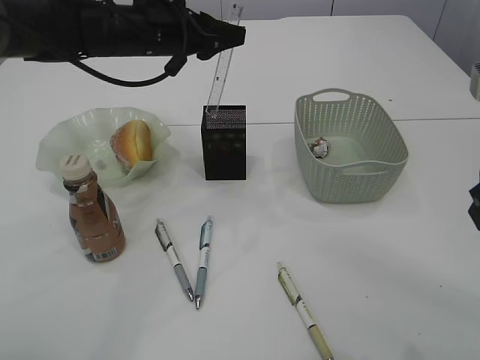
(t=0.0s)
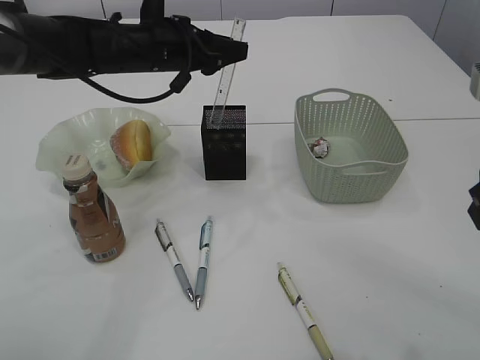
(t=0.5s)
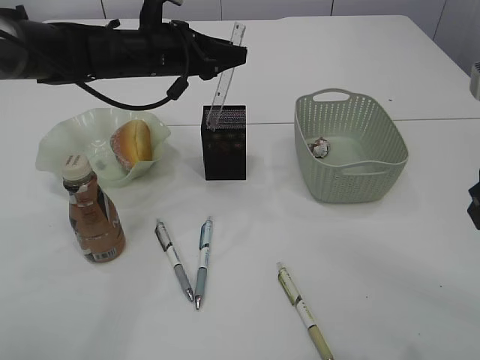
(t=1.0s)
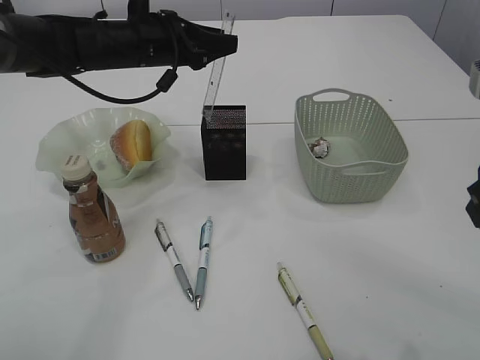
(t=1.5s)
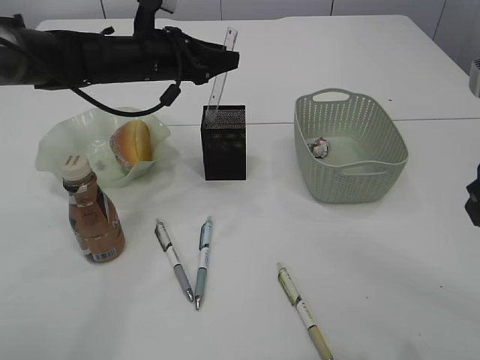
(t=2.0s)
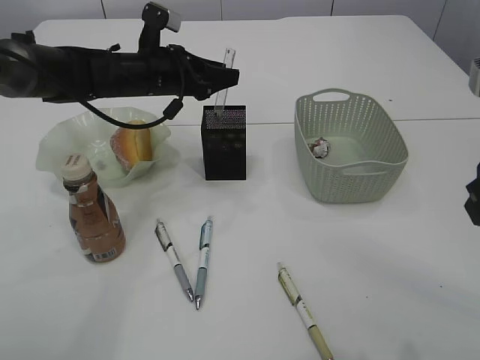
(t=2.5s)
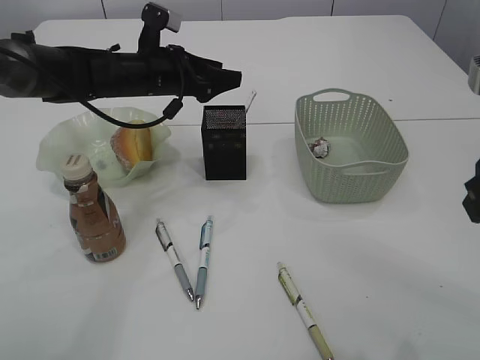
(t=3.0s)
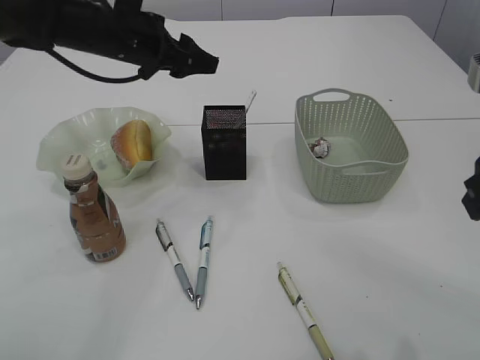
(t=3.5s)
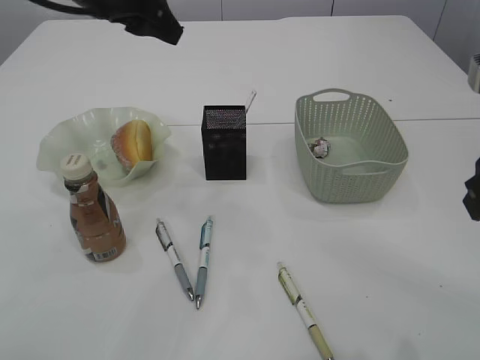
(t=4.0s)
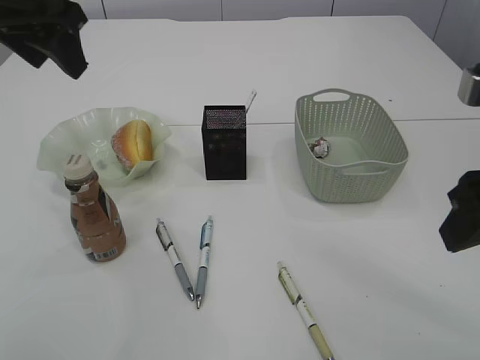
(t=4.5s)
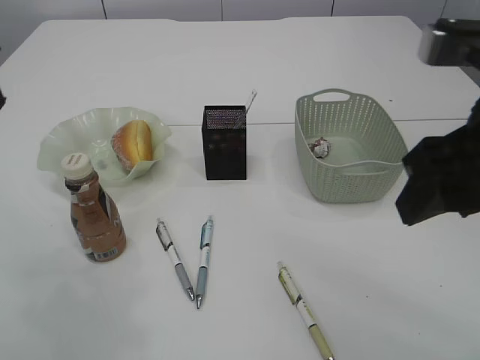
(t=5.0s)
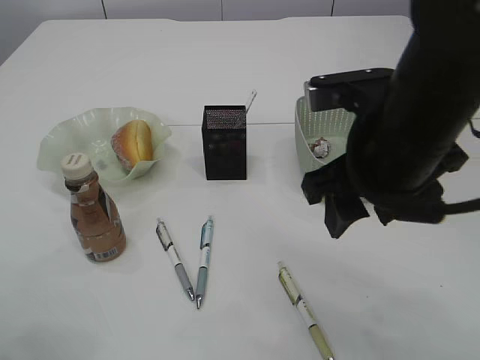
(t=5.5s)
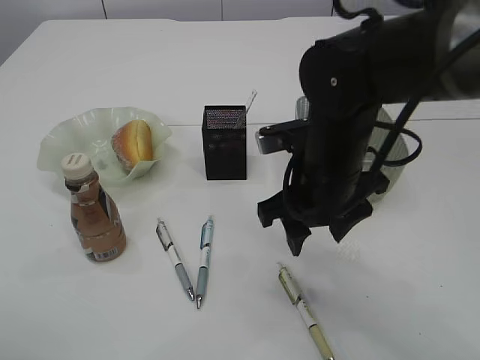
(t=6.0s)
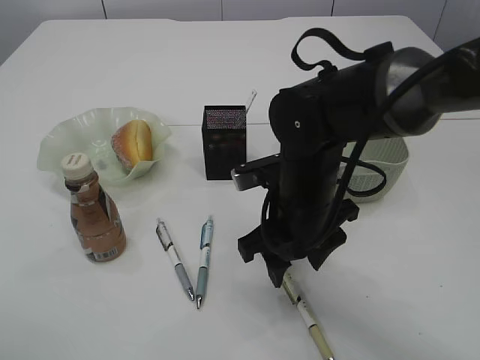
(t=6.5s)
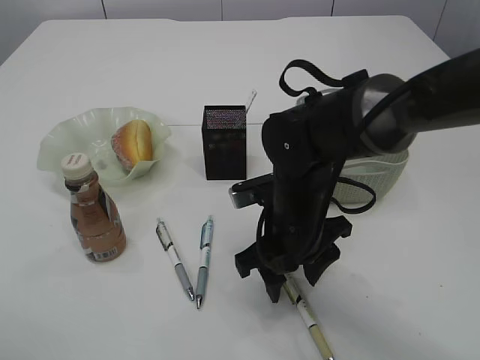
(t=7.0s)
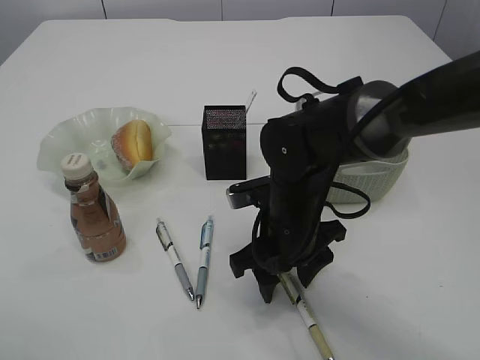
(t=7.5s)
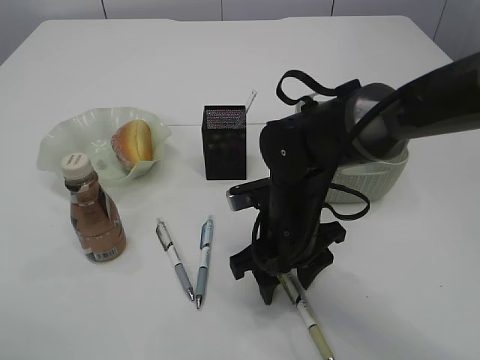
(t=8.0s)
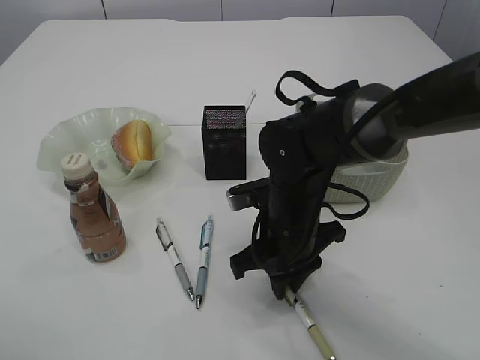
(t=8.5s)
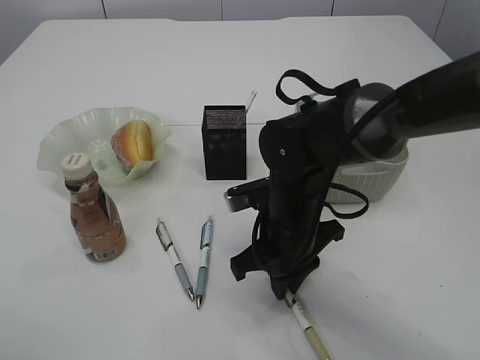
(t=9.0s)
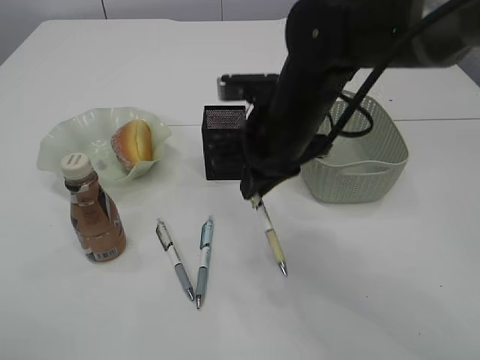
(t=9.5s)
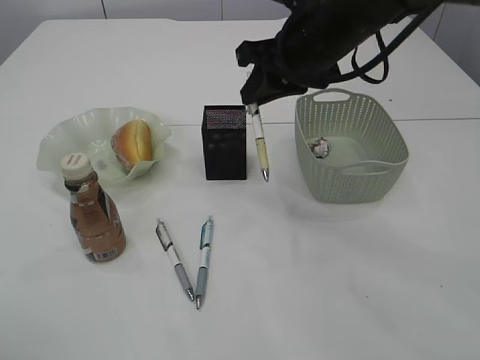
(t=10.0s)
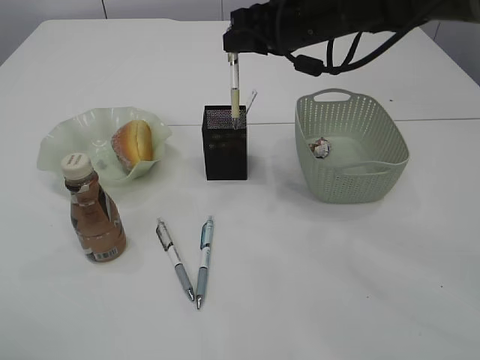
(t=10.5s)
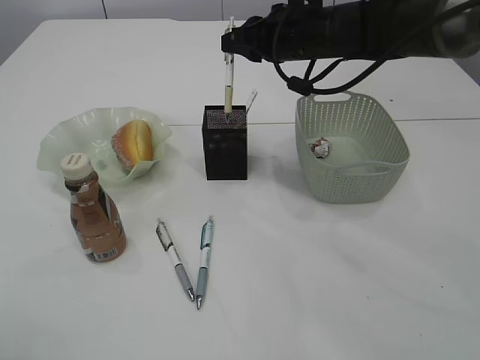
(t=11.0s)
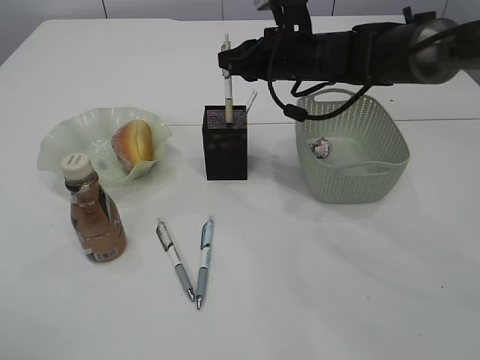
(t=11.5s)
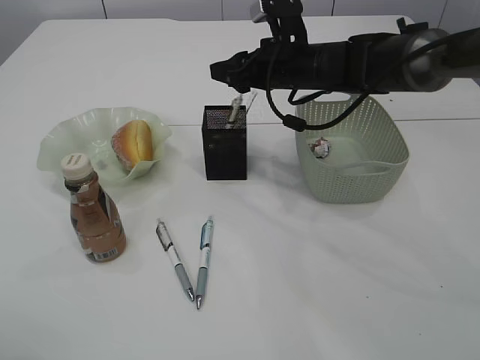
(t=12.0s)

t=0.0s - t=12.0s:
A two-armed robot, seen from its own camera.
Step, t=0.0s - t=2.5s: Place the ruler into the pen holder.
Step, t=3.0s - t=9.0s: Pick up the pen with right arm.
t=0.0s - t=2.0s: The grippers make only small movements.
t=2.0s - t=4.0s: The left gripper is displaced upward and backward by about 15 cm, and opens its fingers.
t=4.0s - t=6.0s: The left gripper moves backward and to the left, approximately 25 cm, while the right gripper is displaced to the left, forward and downward by some 20 cm.
t=6.0s - t=8.0s: The right gripper is displaced downward by roughly 10 cm.
t=8.0s - t=10.0s: The right gripper travels upward and forward by some 20 cm, and closes up.
t=10.0s - t=12.0s: The right gripper heads forward and downward, covering approximately 10 cm, and opens.

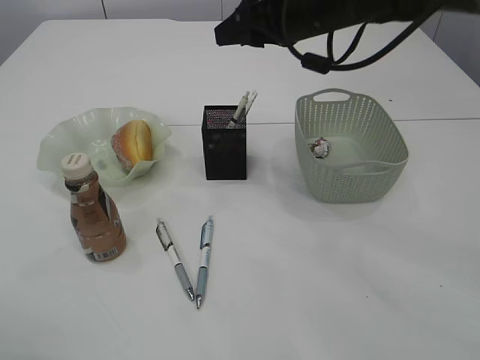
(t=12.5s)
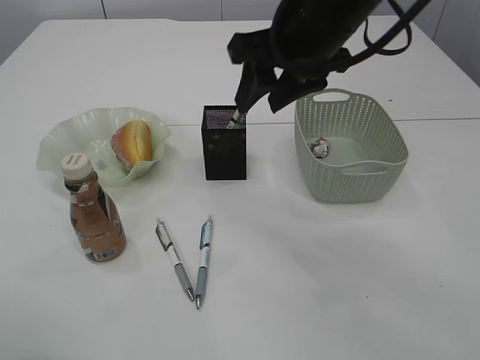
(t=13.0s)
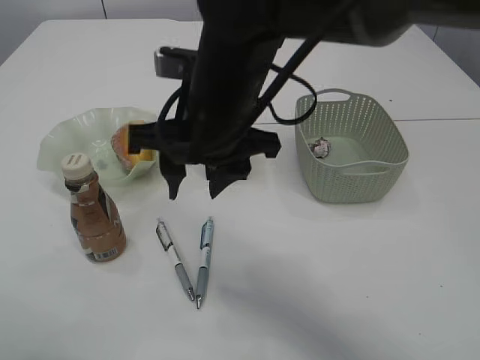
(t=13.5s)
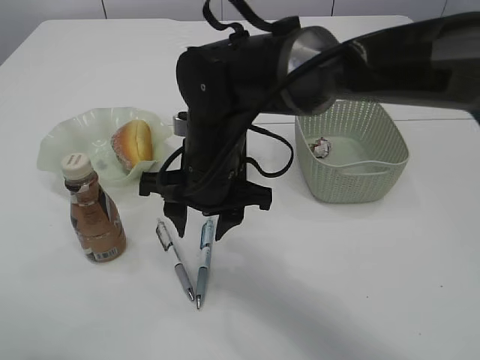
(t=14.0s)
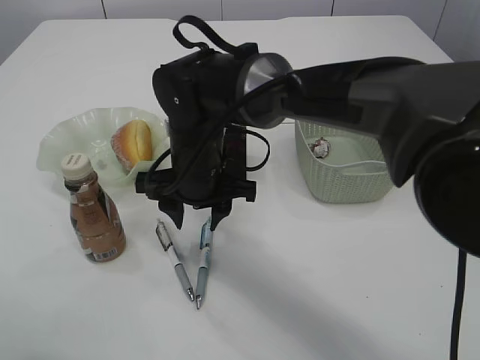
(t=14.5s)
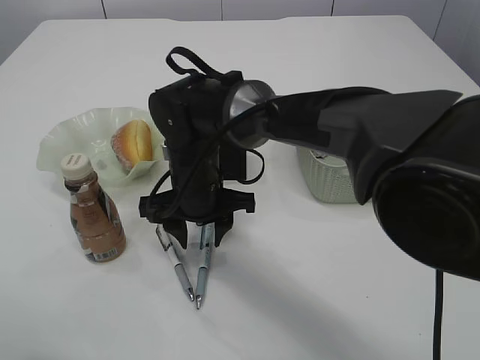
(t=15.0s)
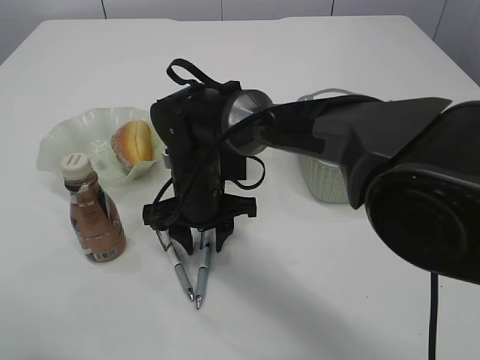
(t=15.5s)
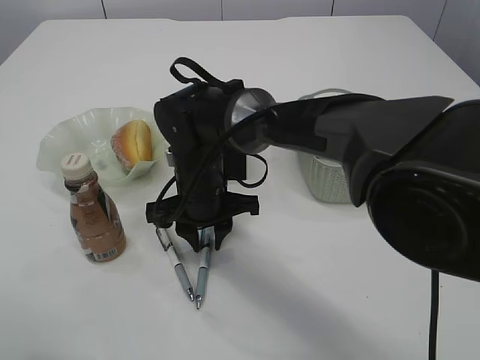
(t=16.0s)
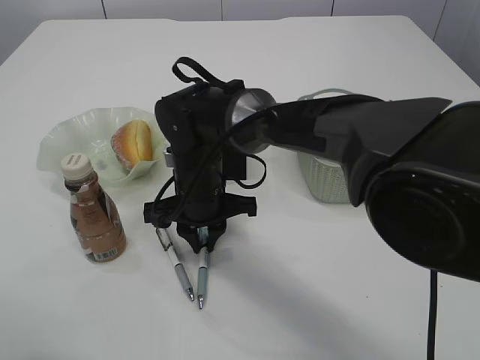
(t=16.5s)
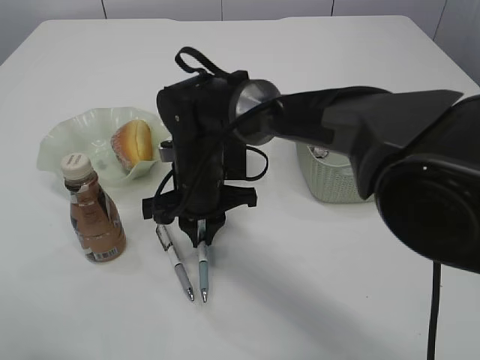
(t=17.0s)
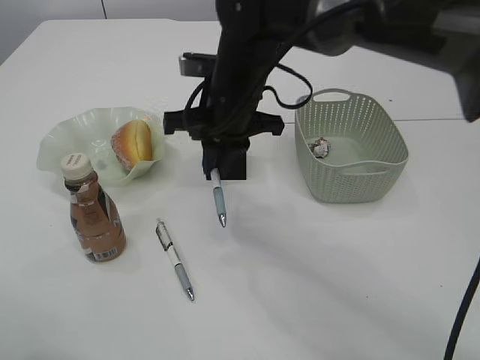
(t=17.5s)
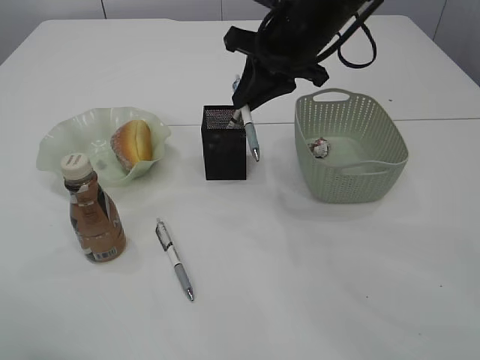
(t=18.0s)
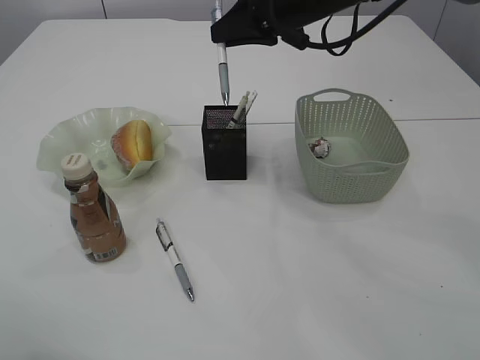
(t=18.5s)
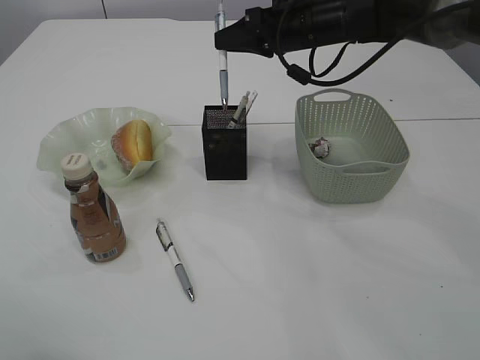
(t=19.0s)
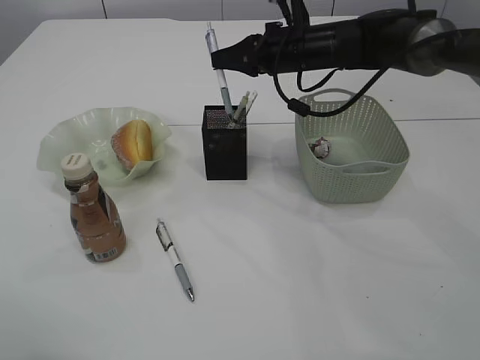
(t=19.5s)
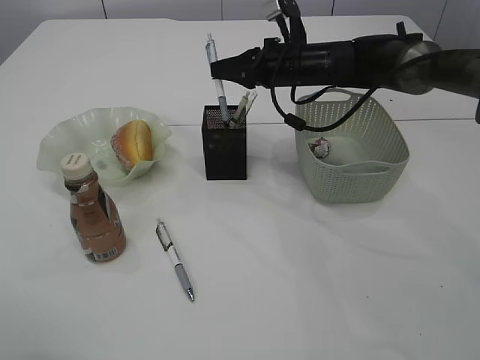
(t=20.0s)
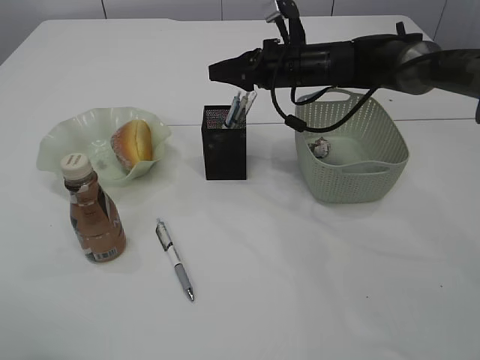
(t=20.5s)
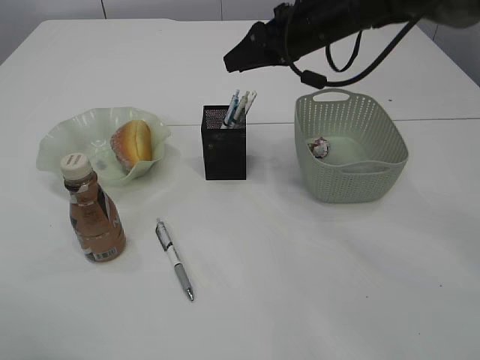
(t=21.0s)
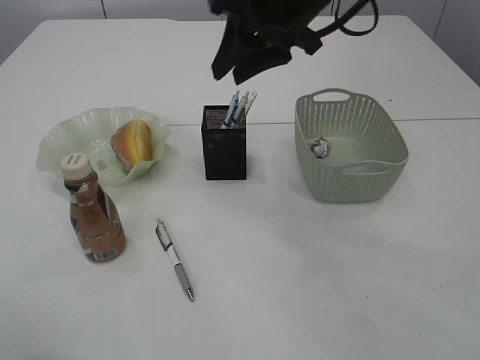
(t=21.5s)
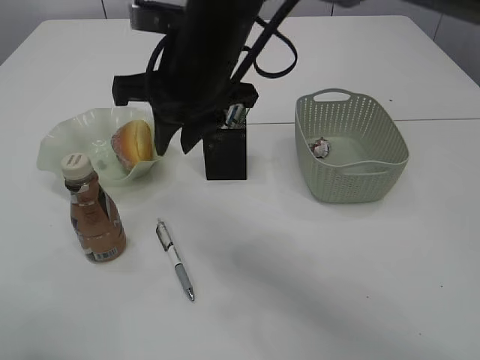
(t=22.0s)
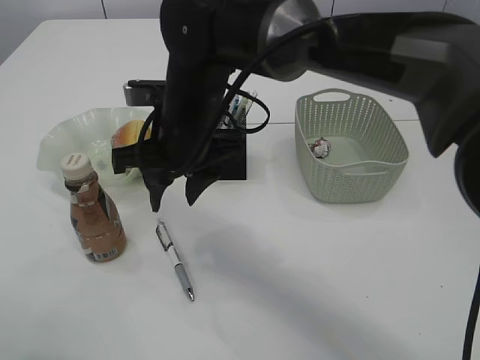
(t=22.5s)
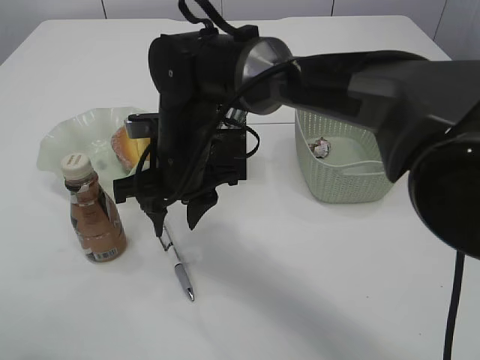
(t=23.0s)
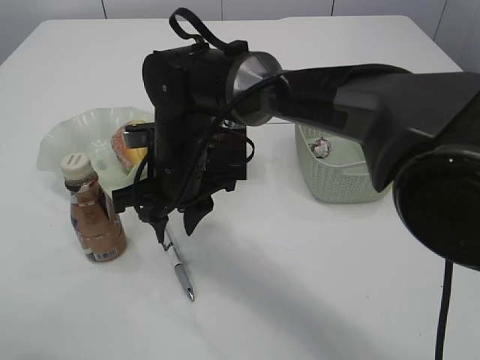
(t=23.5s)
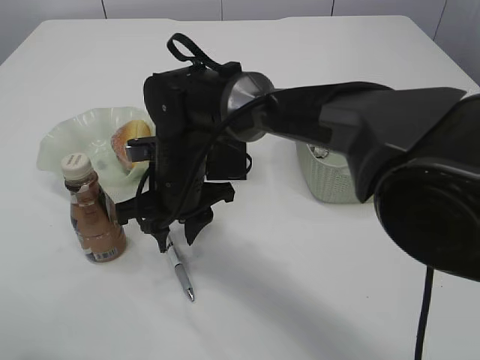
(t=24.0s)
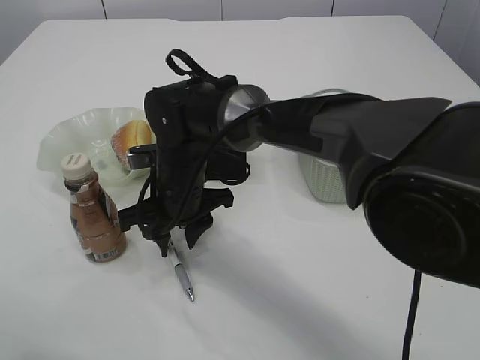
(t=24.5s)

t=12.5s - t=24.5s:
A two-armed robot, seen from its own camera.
Step, t=13.0s - t=17.5s: Pick up the pen with right arm.
Step, t=18.0s - t=20.5s: Place the pen into the pen holder.
t=12.5s - t=14.5s: The right gripper is displaced to the left, downward and backward by about 20 cm.
t=14.5s - t=16.5s: The right gripper closes.
t=16.5s - t=18.5s: The right gripper travels upward, to the right and forward by approximately 25 cm.
t=18.5s - t=20.5s: The right gripper goes some 10 cm downward and forward.
t=20.5s - t=22.5s: The right gripper moves backward and to the left, some 20 cm.
t=22.5s - t=24.5s: The right gripper goes about 10 cm downward.

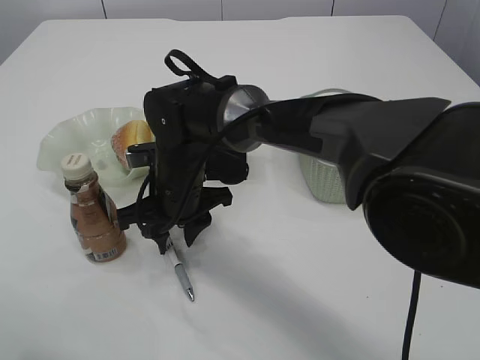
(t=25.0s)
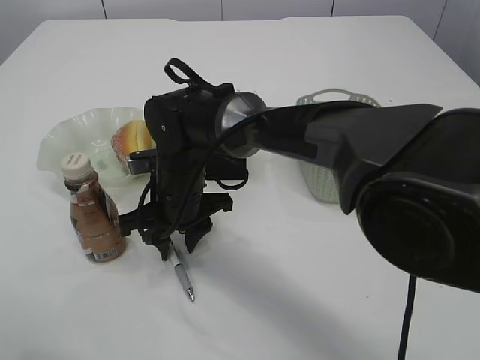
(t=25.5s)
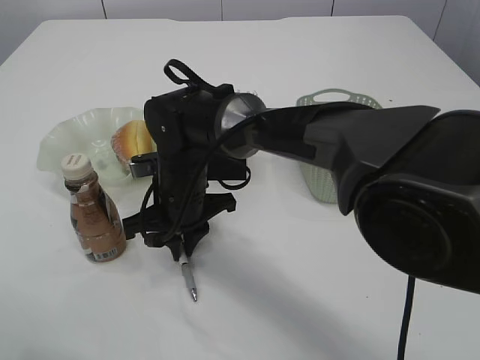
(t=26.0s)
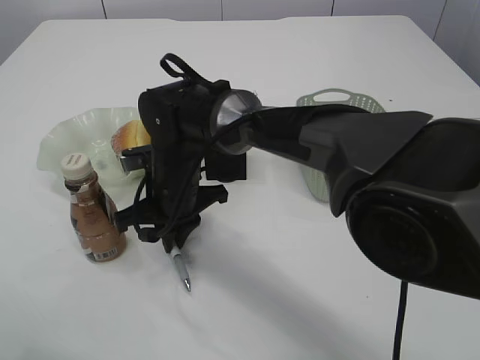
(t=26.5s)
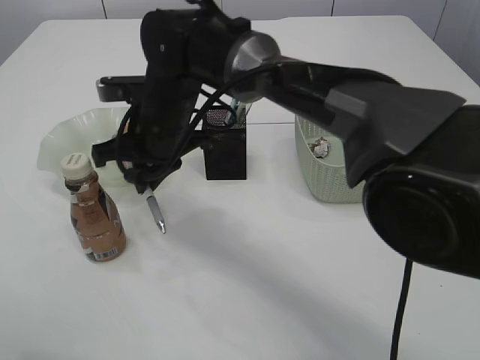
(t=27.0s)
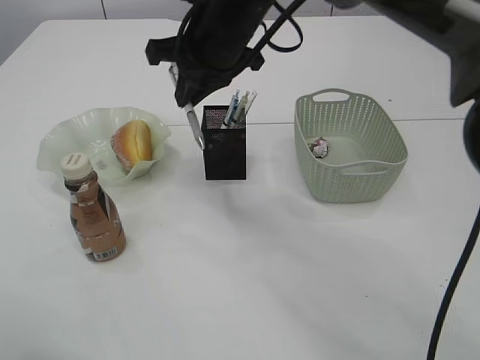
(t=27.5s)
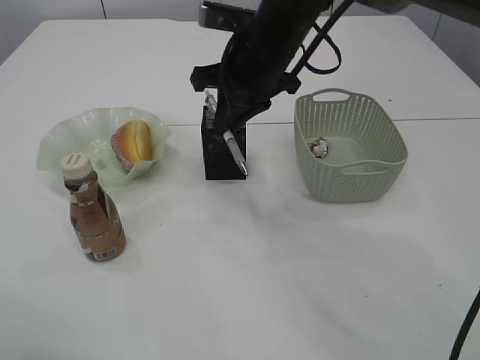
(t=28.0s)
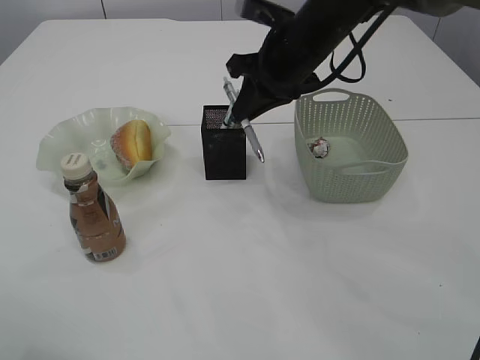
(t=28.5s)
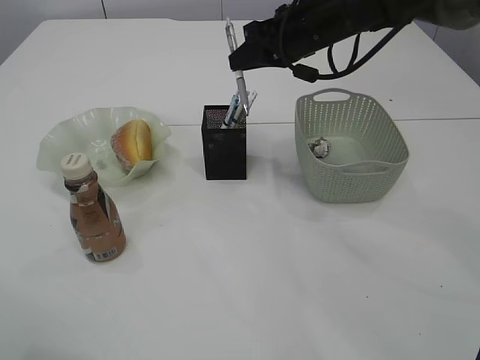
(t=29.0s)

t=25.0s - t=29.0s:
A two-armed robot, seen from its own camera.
t=25.0s - t=27.0s: The right gripper heads upward, covering some 5 cm, and closes up.
t=27.0s - t=29.0s: The right gripper travels to the right and forward by about 20 cm.
